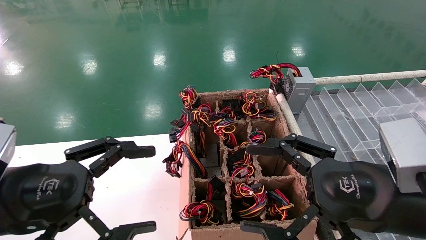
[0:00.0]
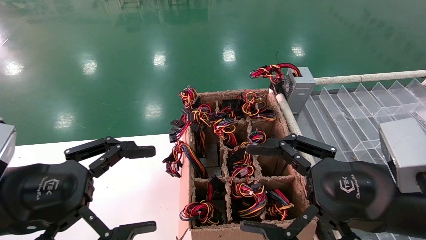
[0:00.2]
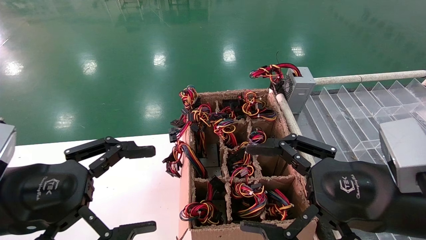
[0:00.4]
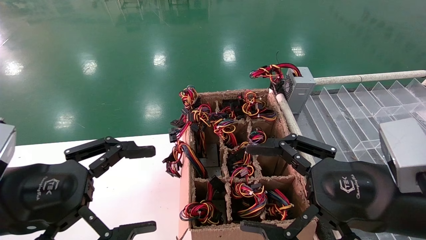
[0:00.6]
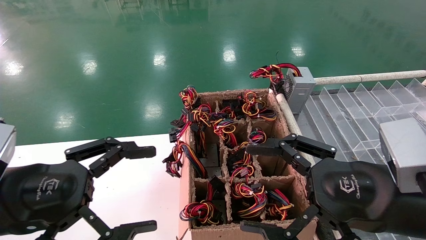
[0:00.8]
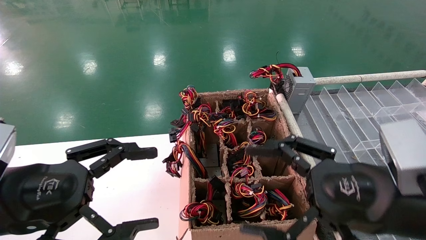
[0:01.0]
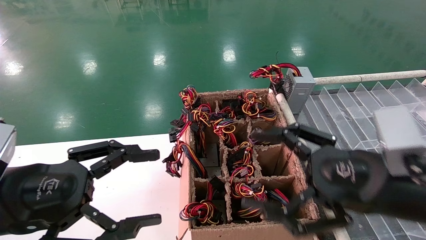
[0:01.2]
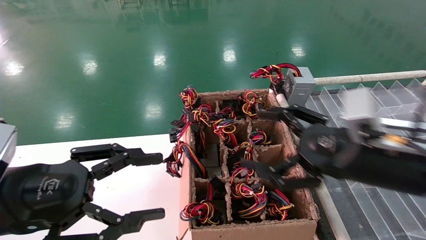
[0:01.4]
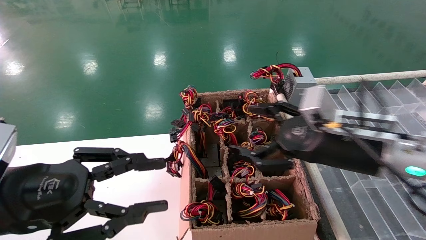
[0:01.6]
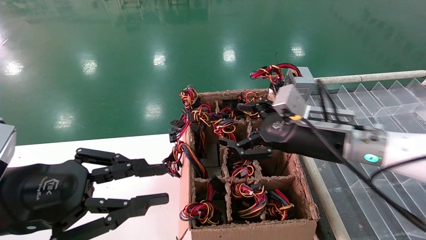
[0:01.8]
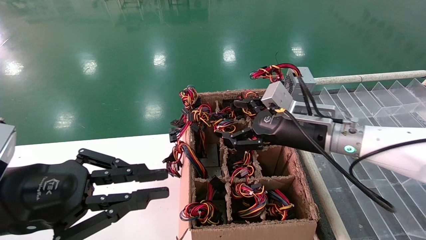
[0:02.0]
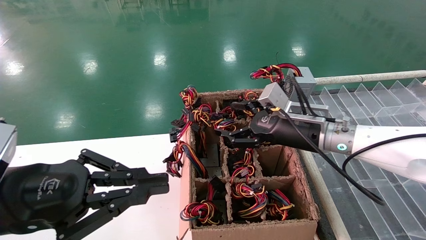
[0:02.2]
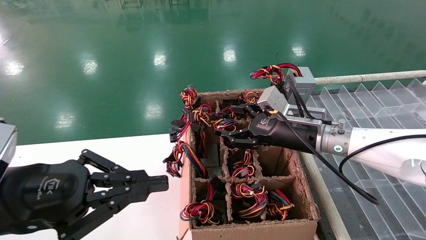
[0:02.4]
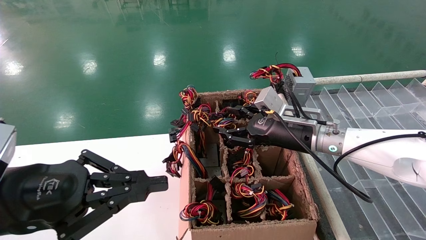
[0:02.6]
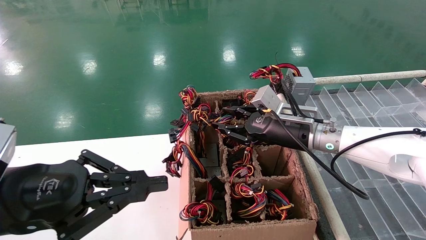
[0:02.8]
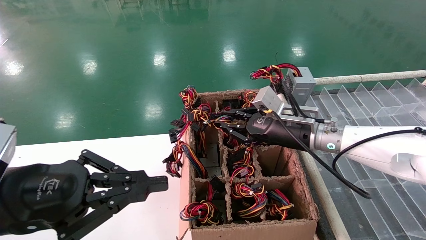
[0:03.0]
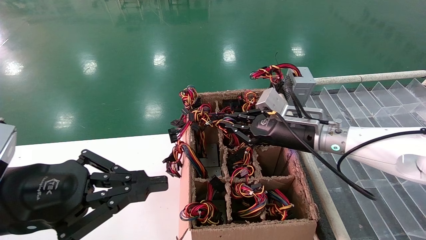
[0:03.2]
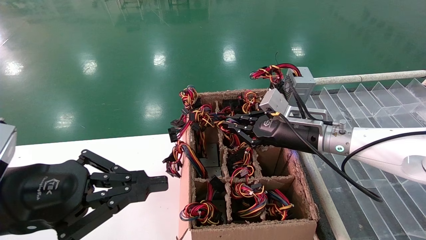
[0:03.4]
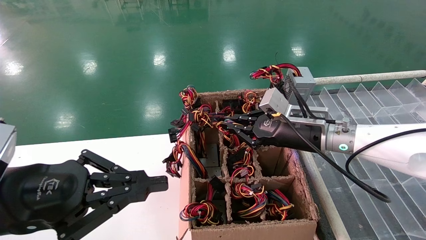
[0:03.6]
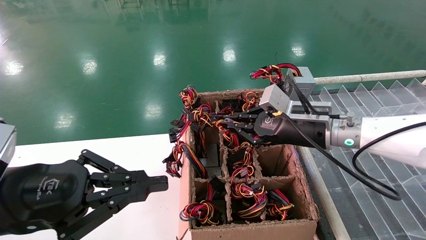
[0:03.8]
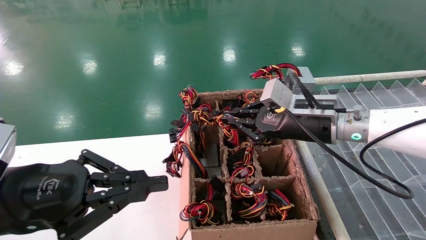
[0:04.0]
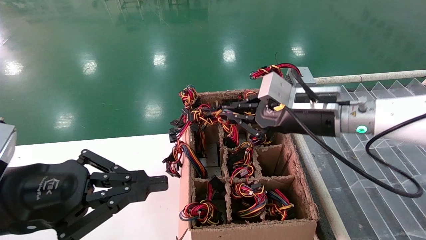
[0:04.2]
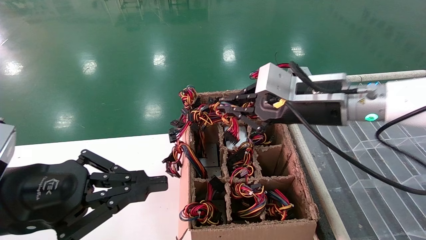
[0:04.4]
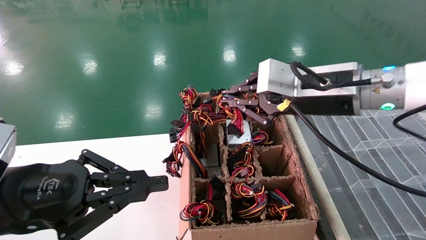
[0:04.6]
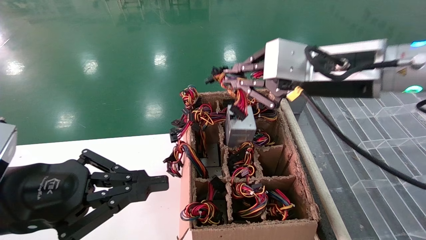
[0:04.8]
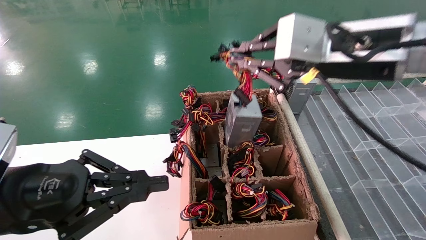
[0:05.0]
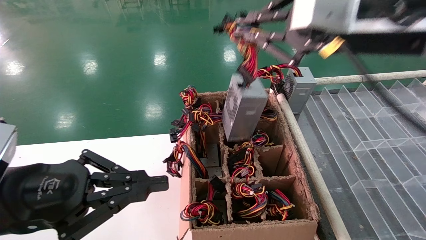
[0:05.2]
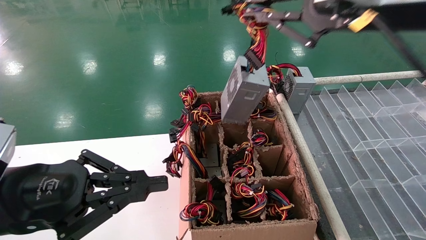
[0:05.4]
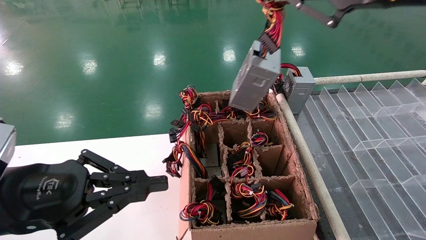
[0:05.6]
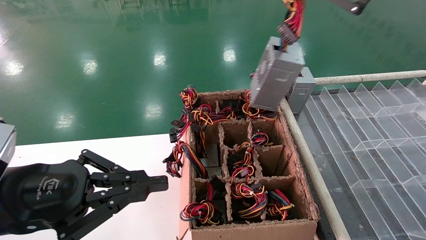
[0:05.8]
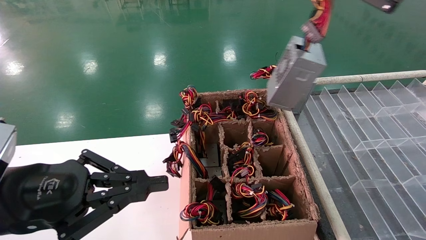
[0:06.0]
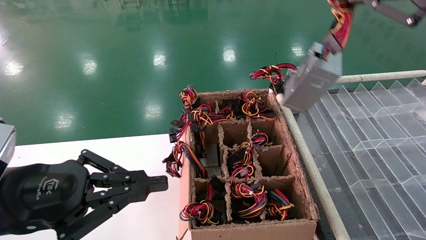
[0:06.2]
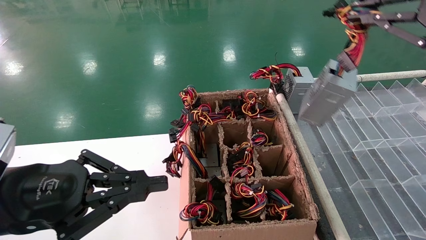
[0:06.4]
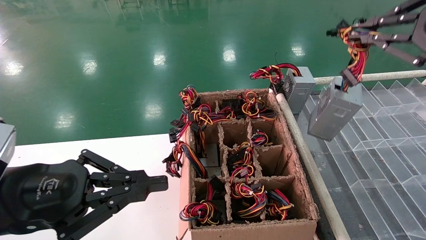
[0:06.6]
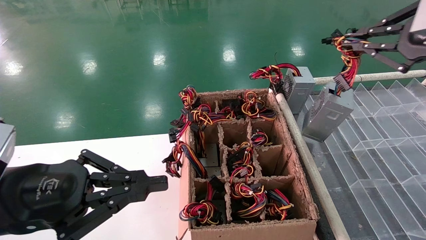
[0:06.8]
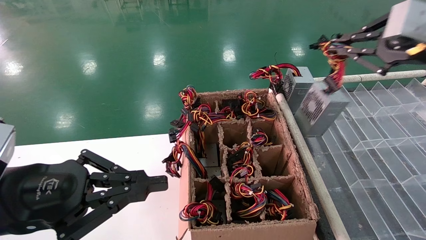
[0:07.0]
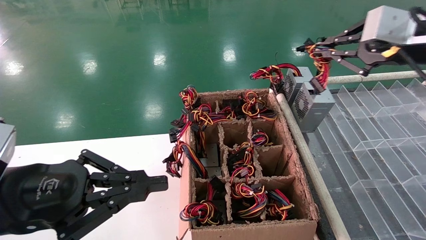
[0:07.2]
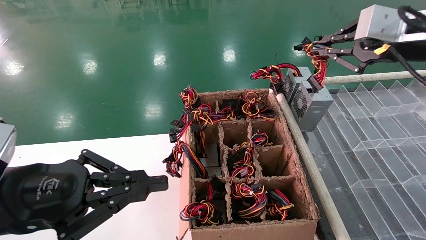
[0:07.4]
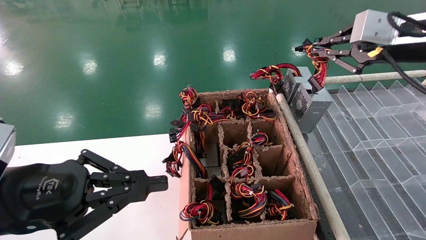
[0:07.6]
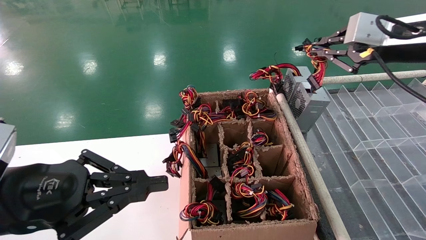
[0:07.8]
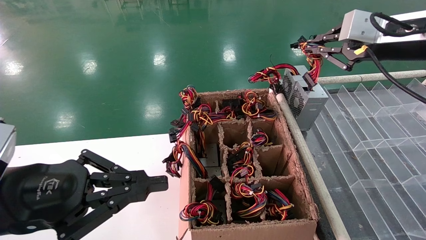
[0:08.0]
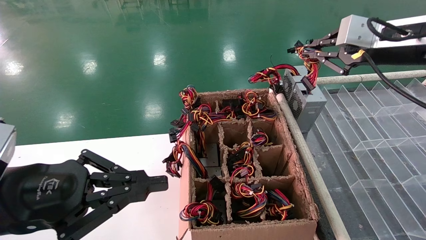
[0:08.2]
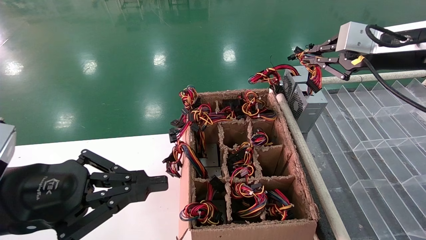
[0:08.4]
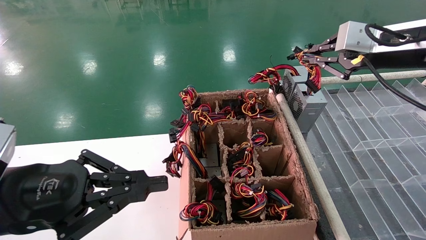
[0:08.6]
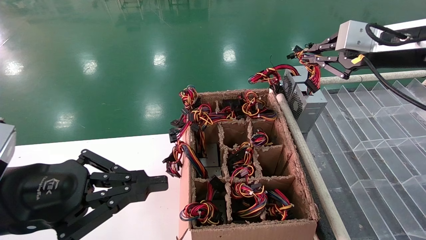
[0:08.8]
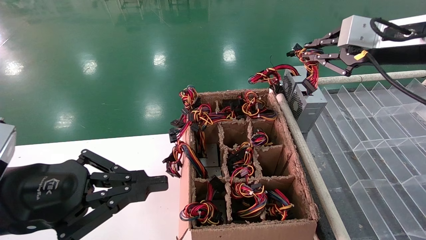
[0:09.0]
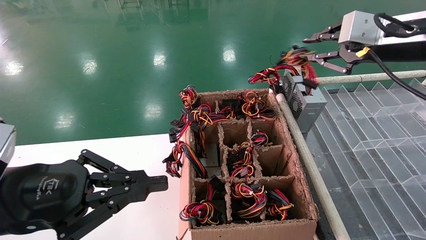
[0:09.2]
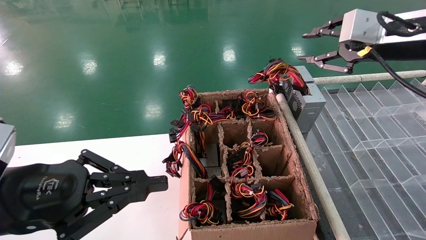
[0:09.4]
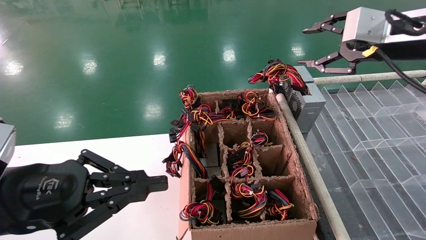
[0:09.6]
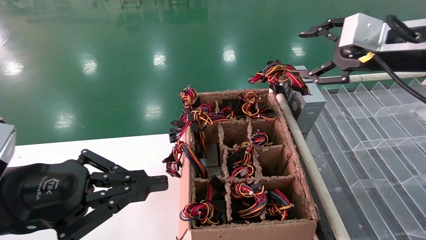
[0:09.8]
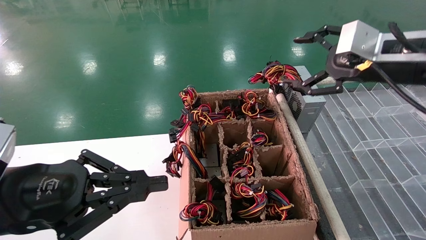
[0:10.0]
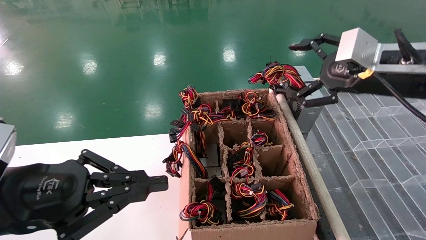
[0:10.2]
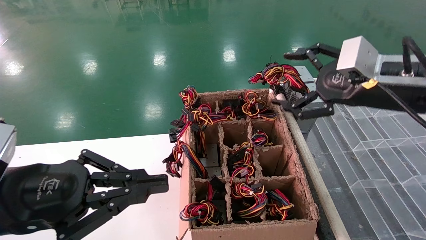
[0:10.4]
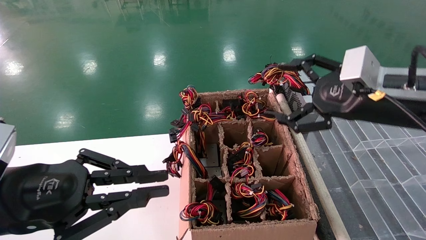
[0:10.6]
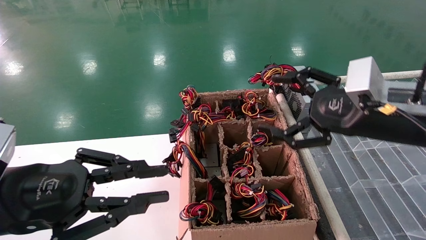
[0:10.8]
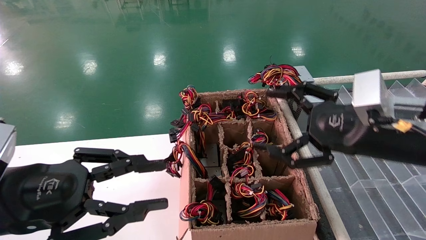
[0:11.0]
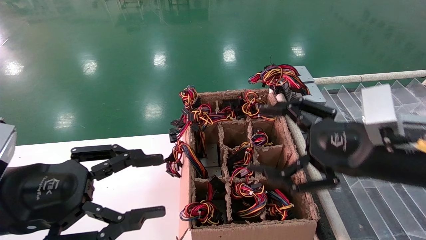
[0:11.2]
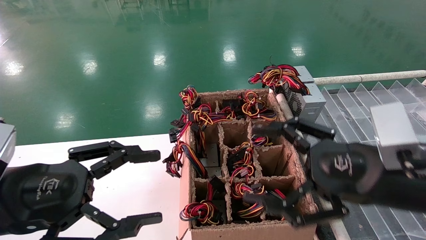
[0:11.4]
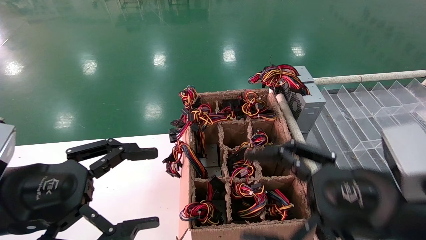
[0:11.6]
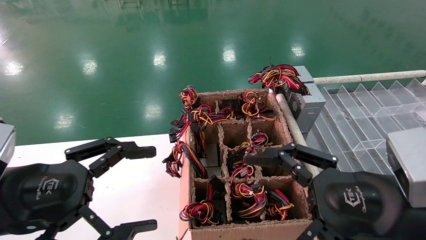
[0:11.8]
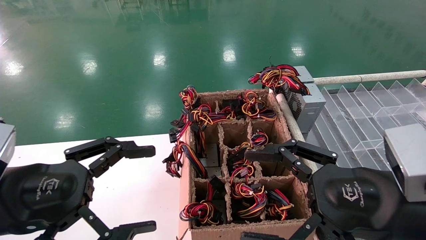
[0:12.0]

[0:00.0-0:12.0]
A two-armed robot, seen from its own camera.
Step, 0:01.4 to 0:03.4: Grab the main unit power supply from the containment box.
Step, 0:03.6 to 0:09.6: Place the main unit power supply in the designated area.
0:00.0 to 0:01.6: The right gripper goes roughly 10 cm forward; the left gripper closes up.
0:01.6 to 0:03.0: The right gripper travels forward by approximately 10 cm, and closes up; the left gripper closes.
0:03.0 to 0:04.4: The right gripper moves upward and backward, approximately 15 cm.
0:04.4 to 0:06.0: The right gripper goes some 25 cm upward, backward and to the right.
0:06.0 to 0:07.6: The right gripper travels forward and downward by some 15 cm.
0:07.6 to 0:09.0: There are only small adjustments of the grippers.
0:09.0 to 0:10.4: The right gripper shifts roughly 5 cm downward, and opens its fingers.
0:10.4 to 0:12.0: The left gripper opens its fingers. Meanwhile the right gripper shifts roughly 15 cm backward, downward and to the left.

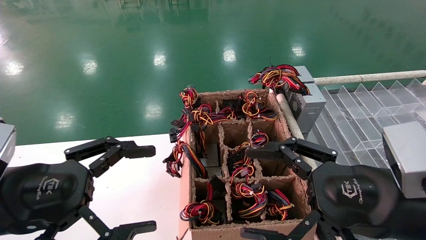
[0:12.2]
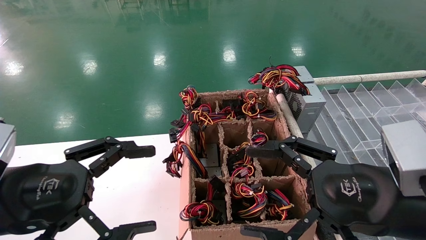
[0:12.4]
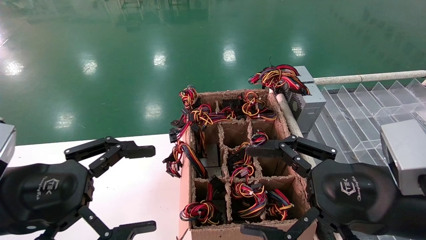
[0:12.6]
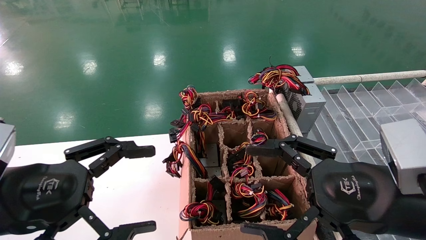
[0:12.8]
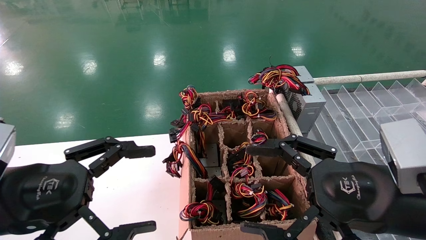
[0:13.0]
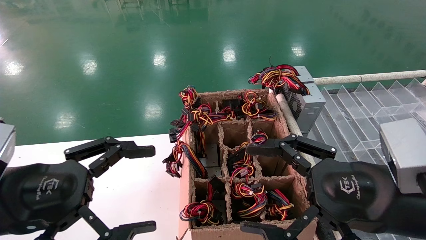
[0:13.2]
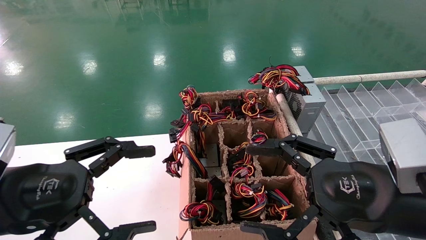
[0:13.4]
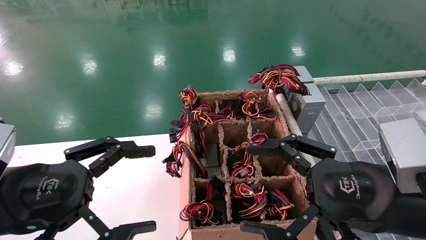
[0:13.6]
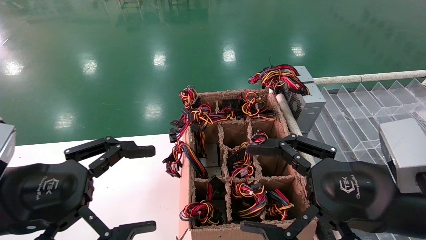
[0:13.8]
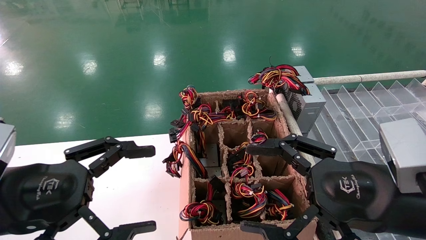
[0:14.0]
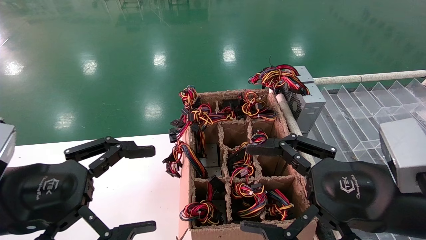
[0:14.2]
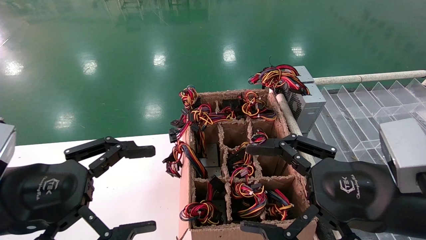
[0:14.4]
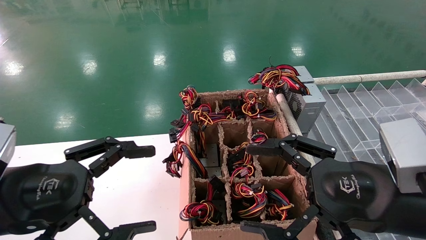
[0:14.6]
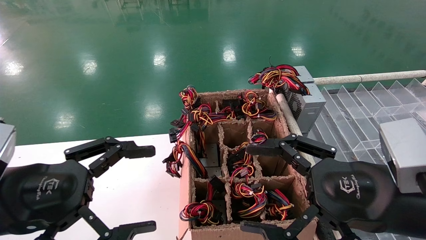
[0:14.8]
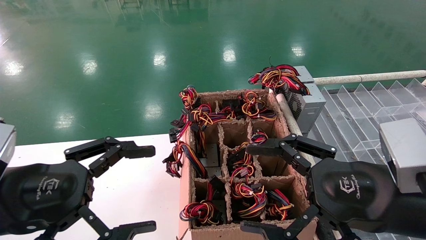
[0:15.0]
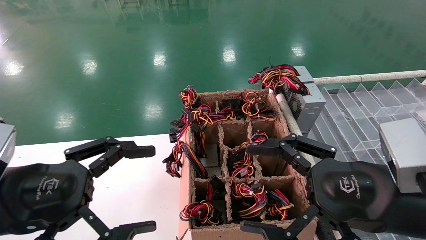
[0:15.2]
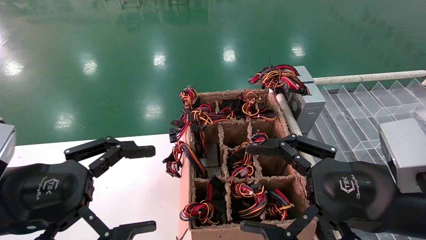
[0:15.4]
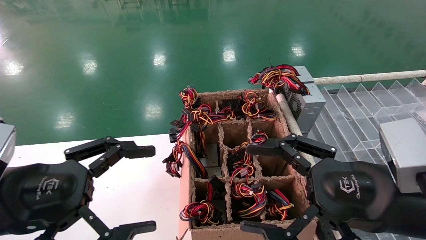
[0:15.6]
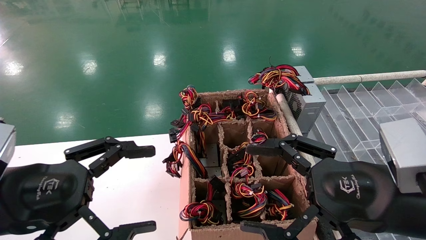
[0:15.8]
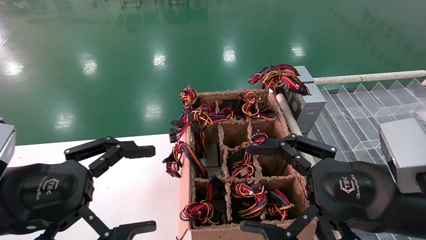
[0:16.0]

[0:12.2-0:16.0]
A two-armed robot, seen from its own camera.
0:12.2 to 0:16.0: Both grippers stay put.
